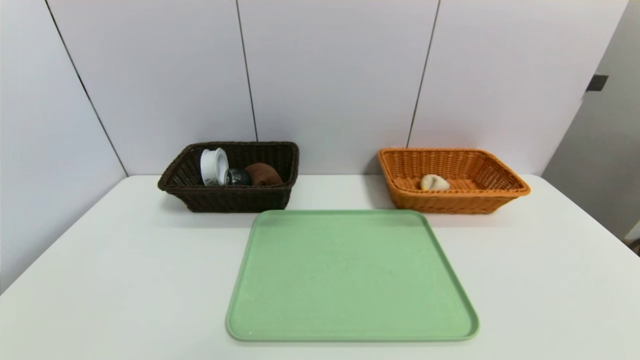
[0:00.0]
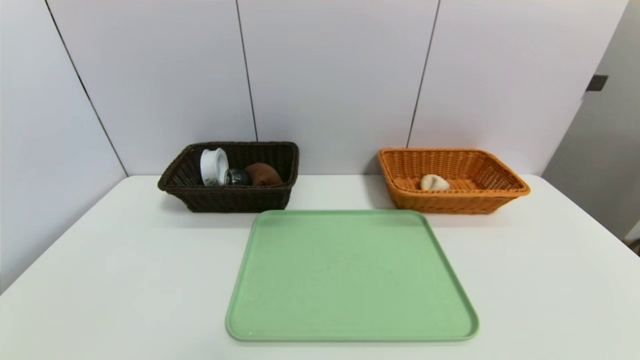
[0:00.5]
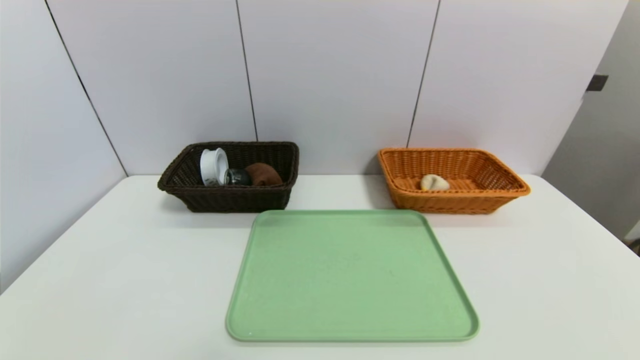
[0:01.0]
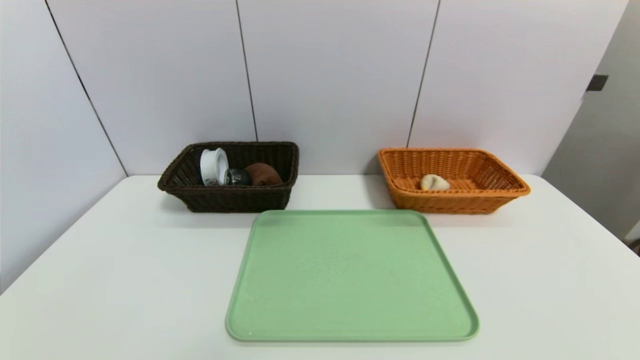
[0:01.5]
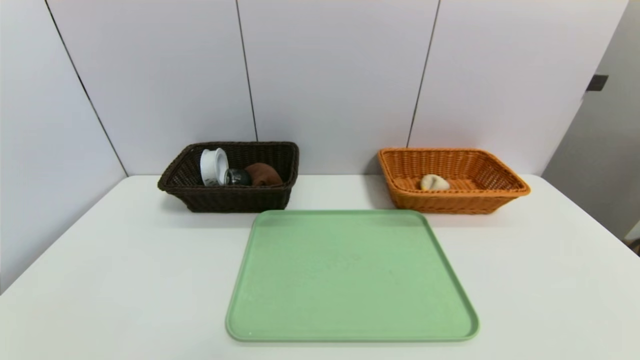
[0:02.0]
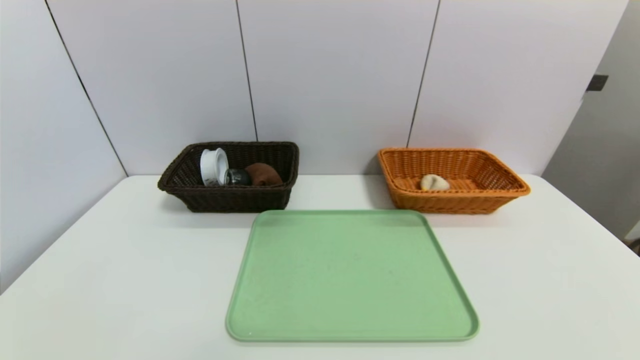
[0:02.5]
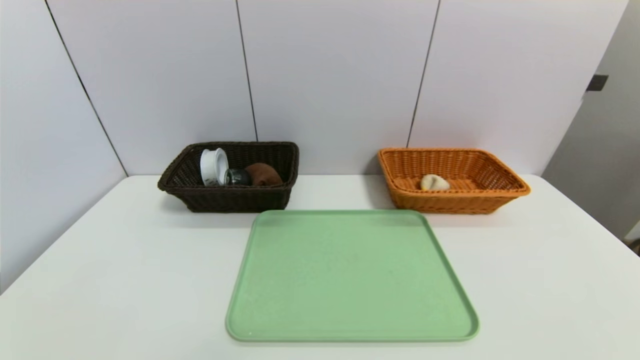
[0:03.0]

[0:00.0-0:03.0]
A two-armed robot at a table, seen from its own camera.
Task of the whole recording: place the food in the right basket with the right gripper, and place the non food items in the left basket with the left gripper.
0:01.5 to 0:03.0: Neither gripper changes place.
